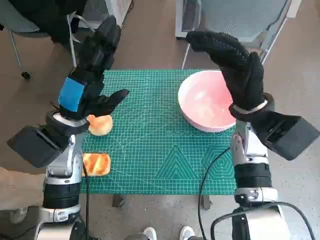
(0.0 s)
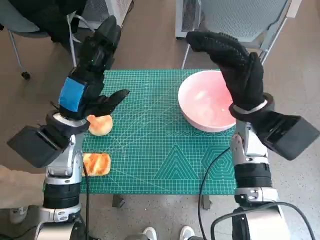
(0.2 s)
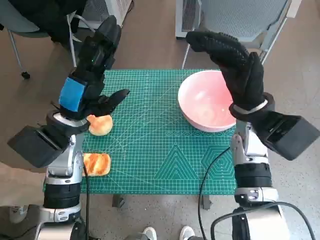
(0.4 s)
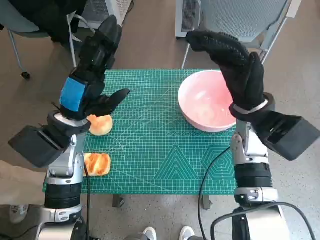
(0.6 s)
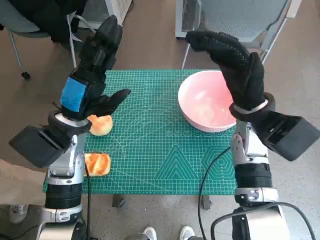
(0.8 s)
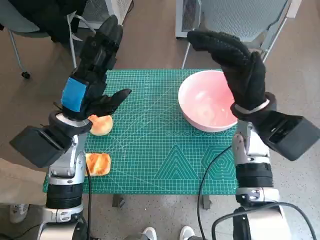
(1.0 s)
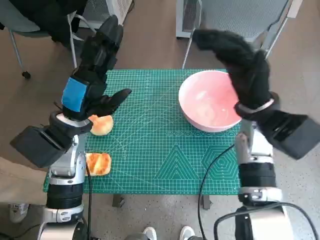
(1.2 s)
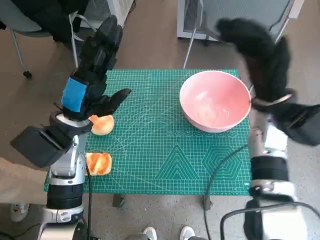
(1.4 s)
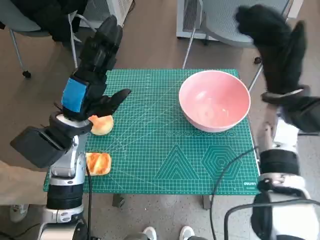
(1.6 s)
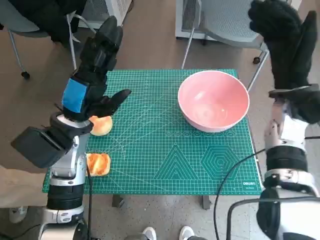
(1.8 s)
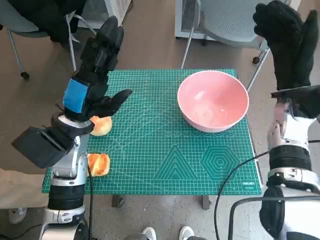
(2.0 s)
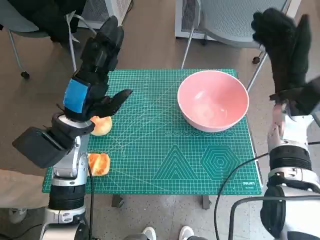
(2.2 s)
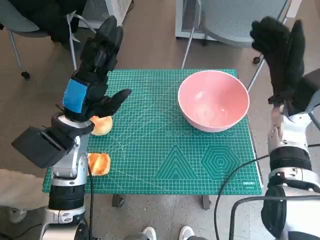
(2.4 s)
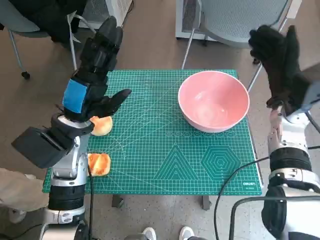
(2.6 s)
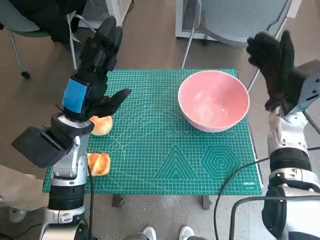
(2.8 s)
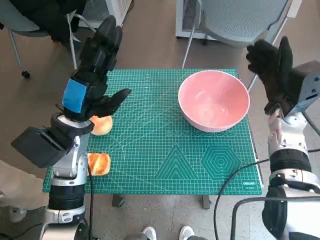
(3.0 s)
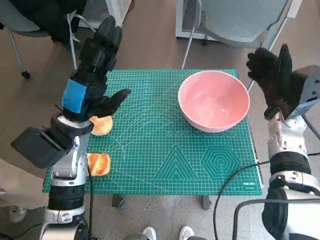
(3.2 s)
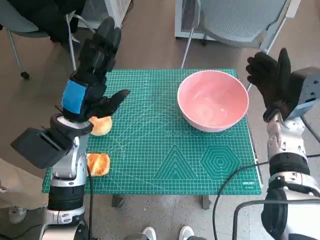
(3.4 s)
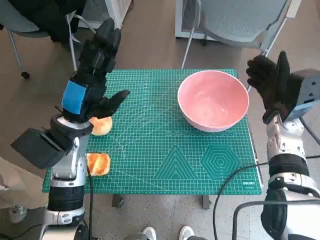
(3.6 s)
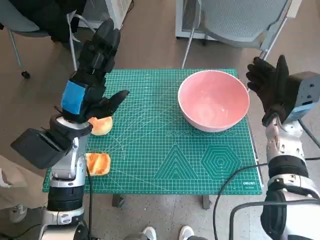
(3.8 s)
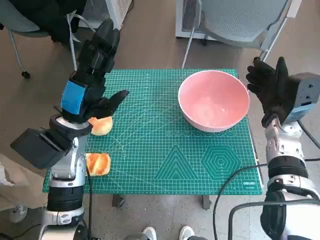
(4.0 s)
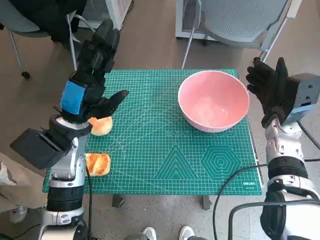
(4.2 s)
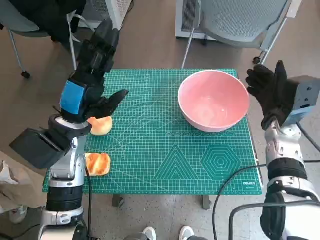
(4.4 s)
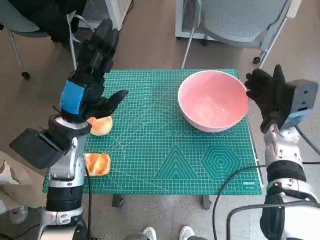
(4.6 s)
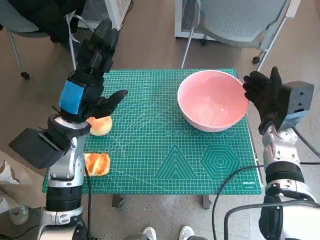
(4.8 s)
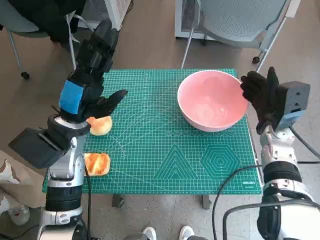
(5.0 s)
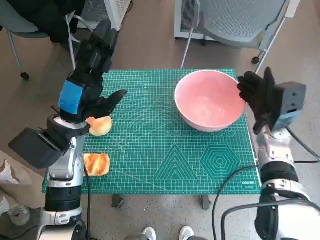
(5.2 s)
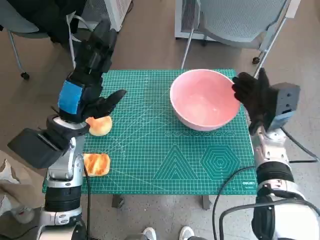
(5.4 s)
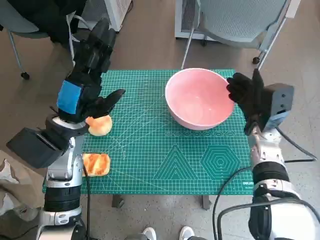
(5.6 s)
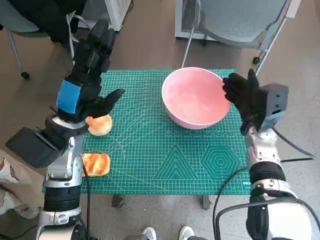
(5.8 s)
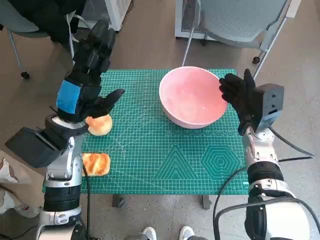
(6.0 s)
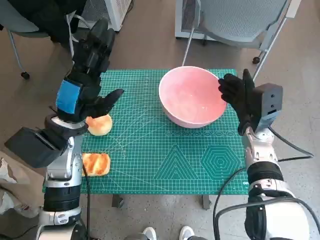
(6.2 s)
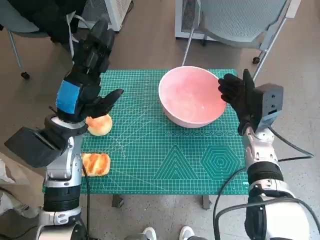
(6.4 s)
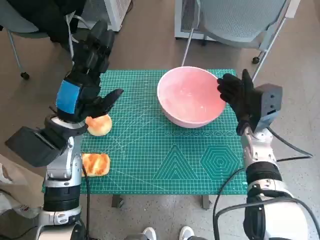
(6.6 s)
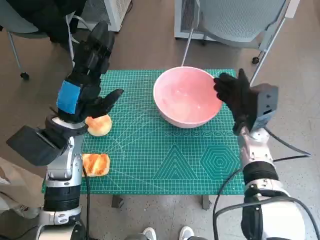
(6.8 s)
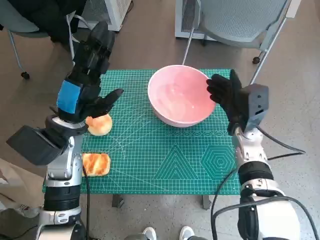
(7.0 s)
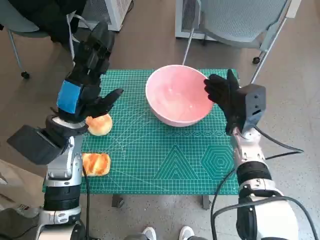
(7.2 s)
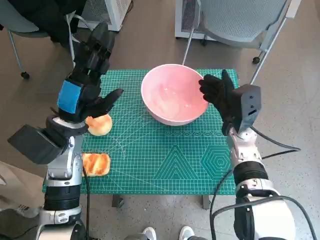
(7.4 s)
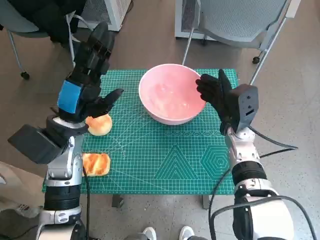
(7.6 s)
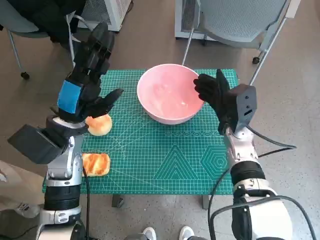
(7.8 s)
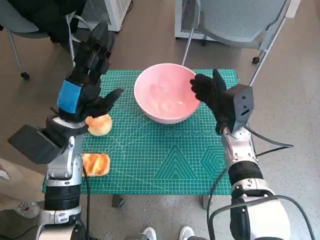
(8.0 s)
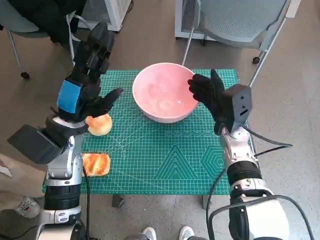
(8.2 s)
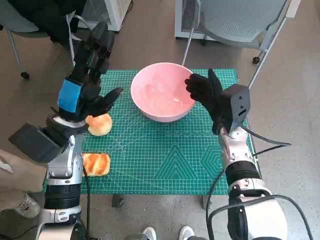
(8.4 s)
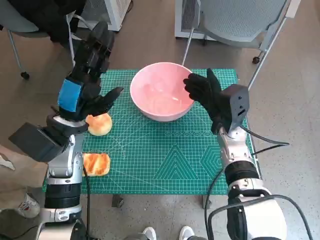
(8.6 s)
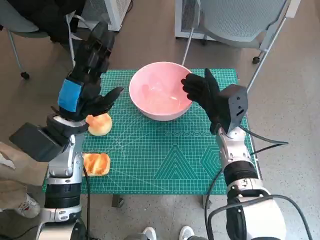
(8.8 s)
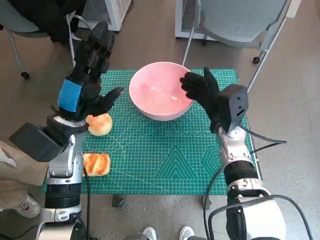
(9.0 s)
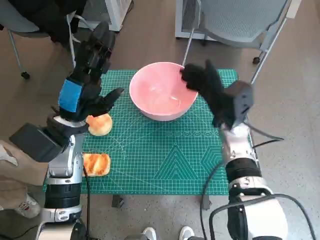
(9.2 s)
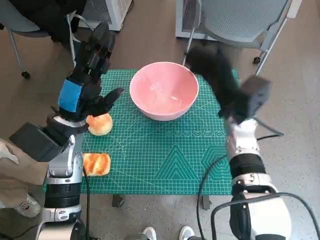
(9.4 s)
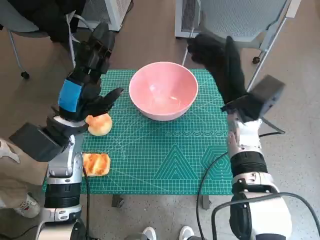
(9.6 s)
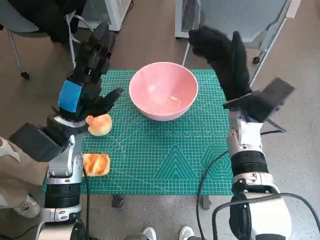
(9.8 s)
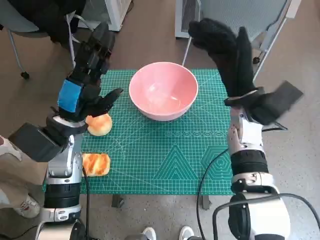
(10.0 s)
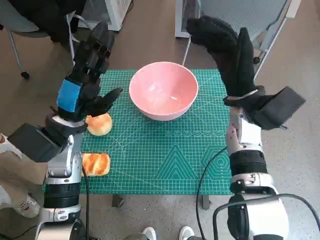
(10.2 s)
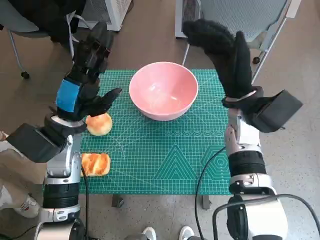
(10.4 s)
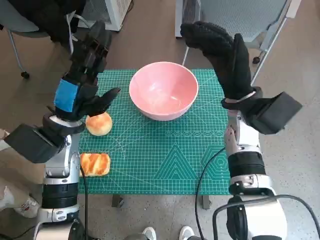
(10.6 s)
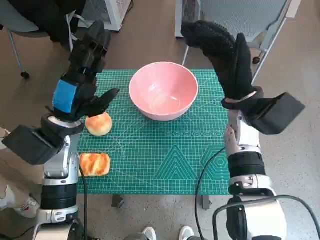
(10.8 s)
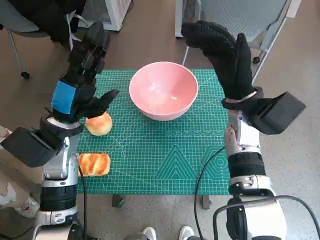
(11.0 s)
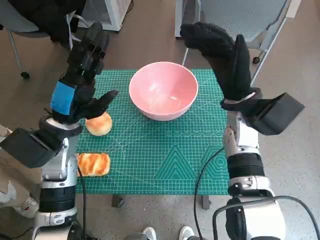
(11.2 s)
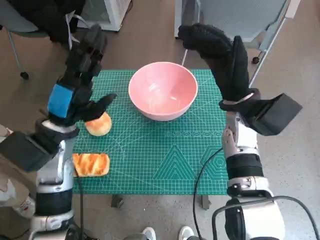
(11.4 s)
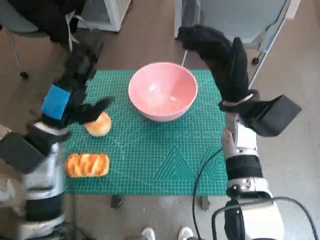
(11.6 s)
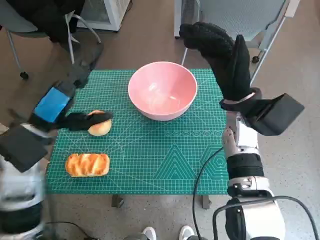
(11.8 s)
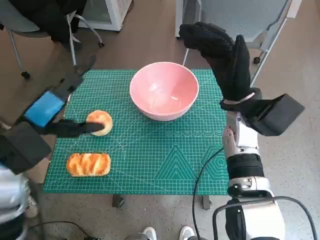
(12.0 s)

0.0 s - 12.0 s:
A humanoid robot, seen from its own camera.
Step, 0.0 s - 9.0 s: Move the pink bowl to the center of table with right hand.
3.0 s - 4.4 s: The hands make only small movements.
6.0 s - 9.0 s: The hands stay close to where they were, moving slightly.
9.0 s - 10.4 s: The right hand travels upward by approximately 10 cm.
10.4 s - 12.0 s: The left hand is displaced backward by roughly 5 cm.

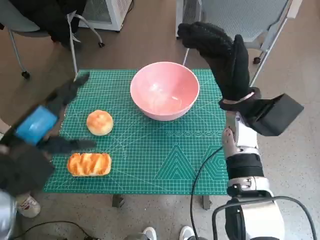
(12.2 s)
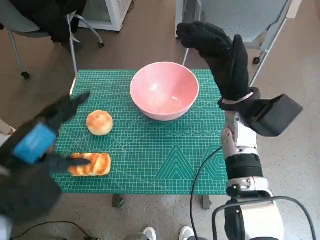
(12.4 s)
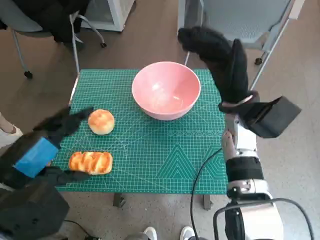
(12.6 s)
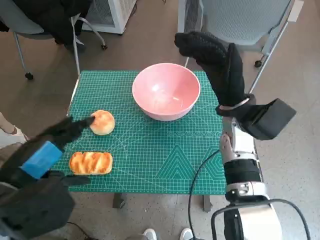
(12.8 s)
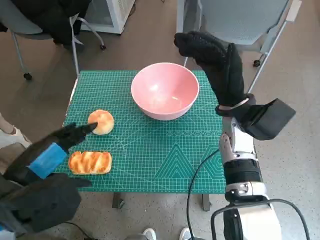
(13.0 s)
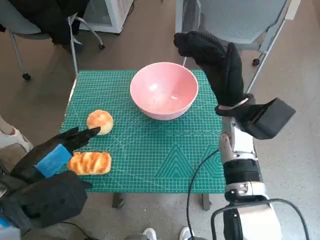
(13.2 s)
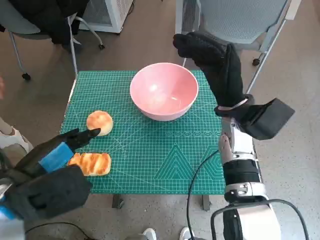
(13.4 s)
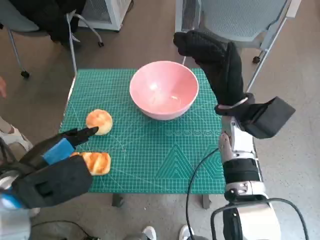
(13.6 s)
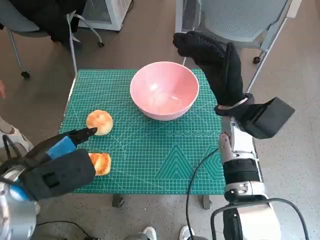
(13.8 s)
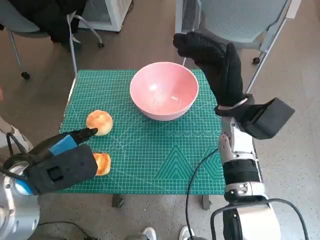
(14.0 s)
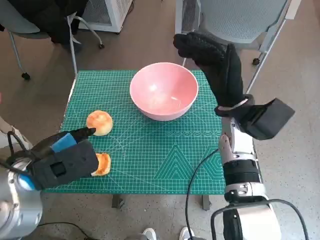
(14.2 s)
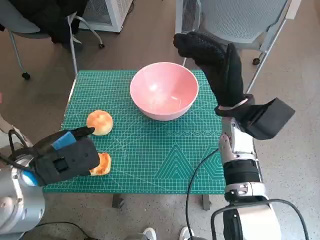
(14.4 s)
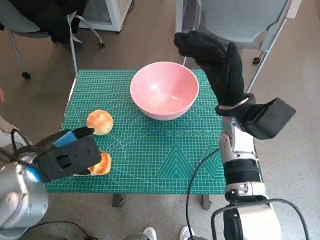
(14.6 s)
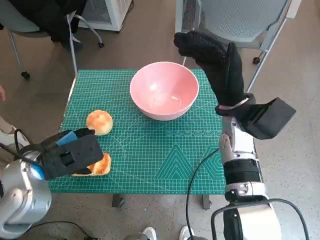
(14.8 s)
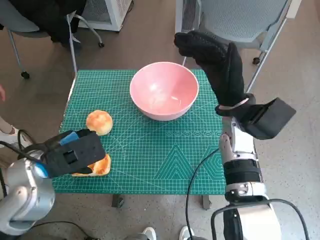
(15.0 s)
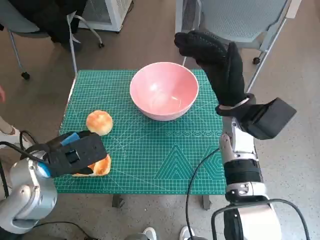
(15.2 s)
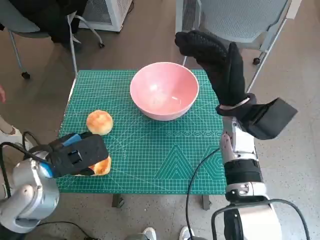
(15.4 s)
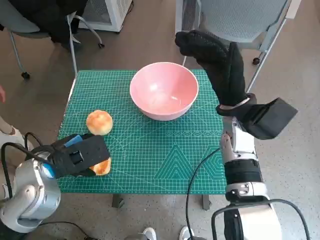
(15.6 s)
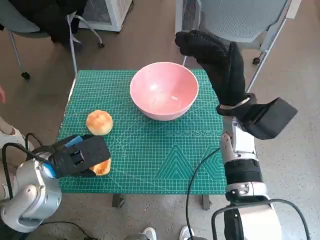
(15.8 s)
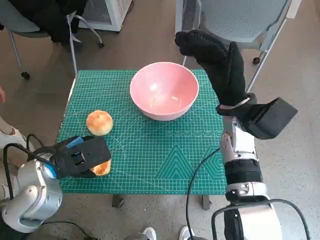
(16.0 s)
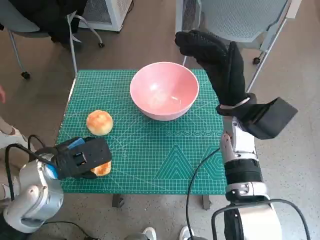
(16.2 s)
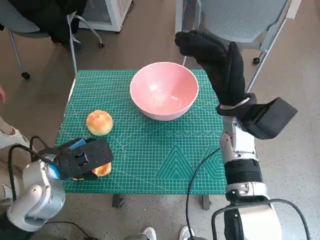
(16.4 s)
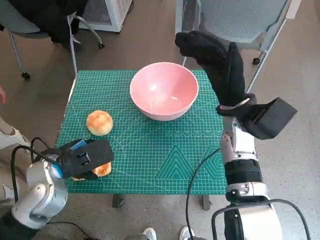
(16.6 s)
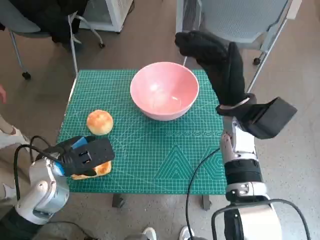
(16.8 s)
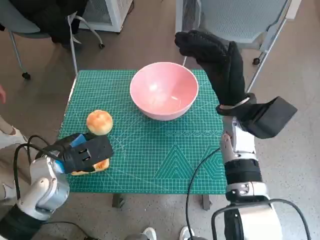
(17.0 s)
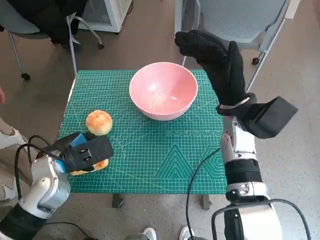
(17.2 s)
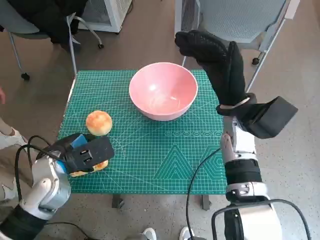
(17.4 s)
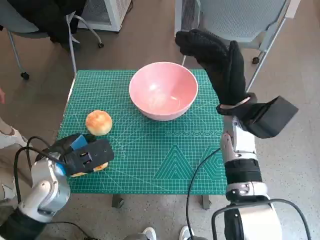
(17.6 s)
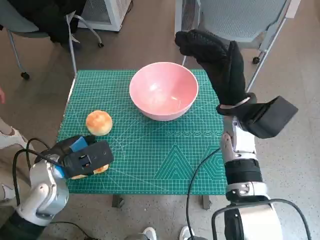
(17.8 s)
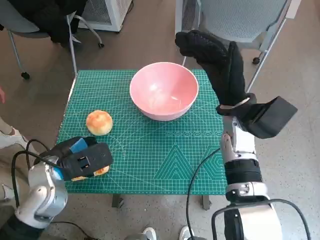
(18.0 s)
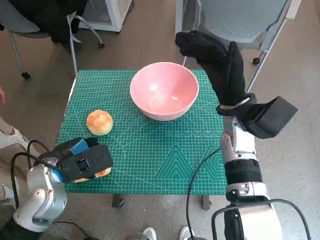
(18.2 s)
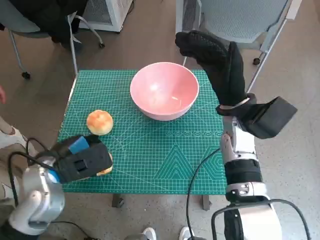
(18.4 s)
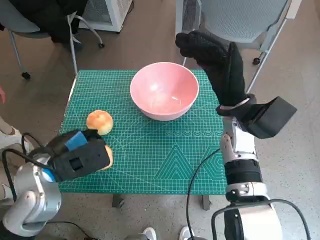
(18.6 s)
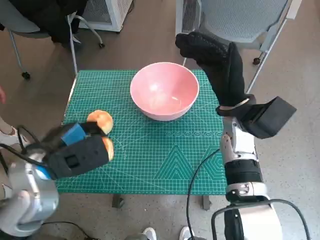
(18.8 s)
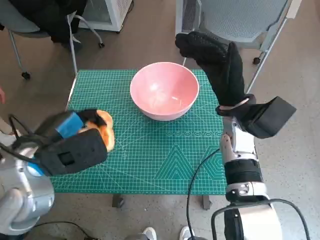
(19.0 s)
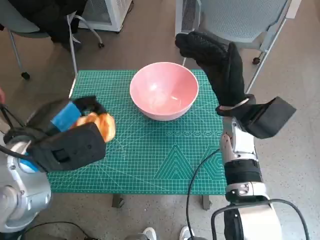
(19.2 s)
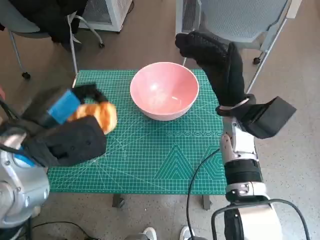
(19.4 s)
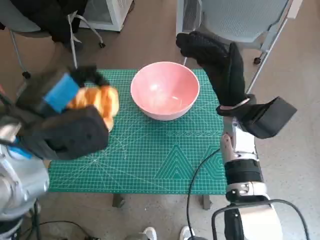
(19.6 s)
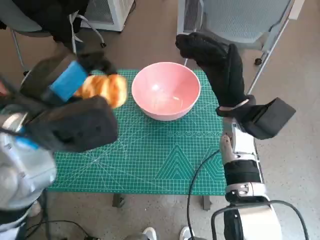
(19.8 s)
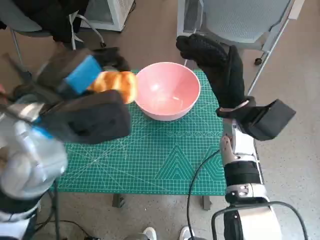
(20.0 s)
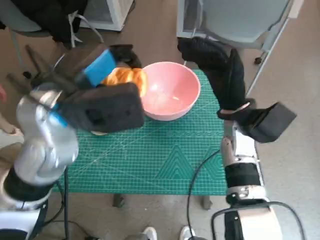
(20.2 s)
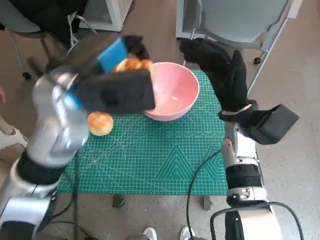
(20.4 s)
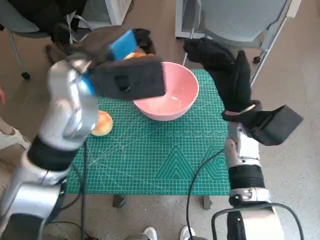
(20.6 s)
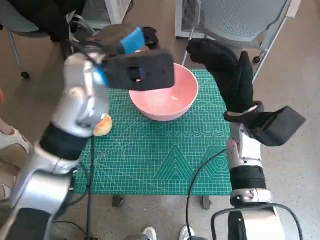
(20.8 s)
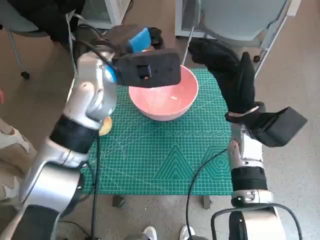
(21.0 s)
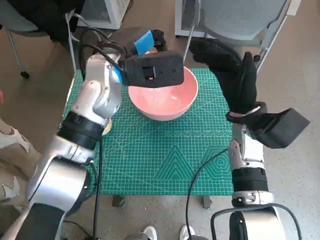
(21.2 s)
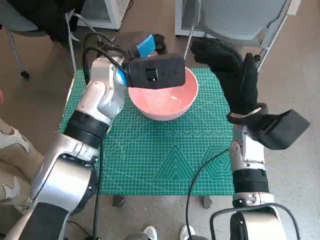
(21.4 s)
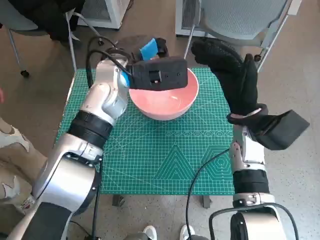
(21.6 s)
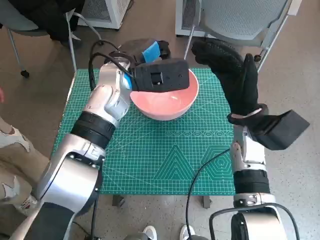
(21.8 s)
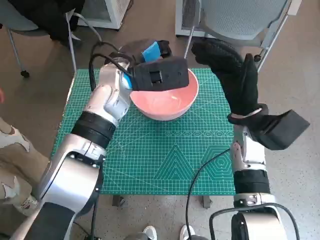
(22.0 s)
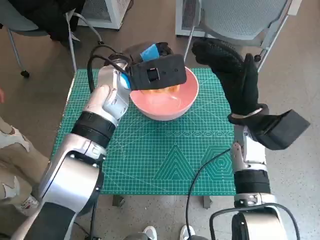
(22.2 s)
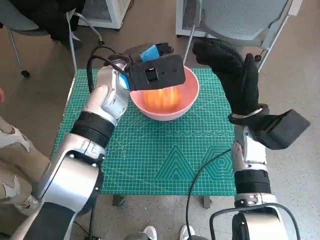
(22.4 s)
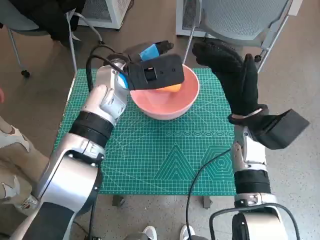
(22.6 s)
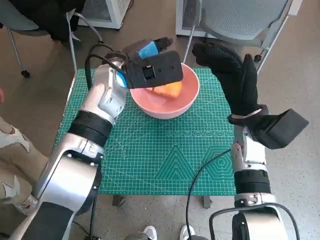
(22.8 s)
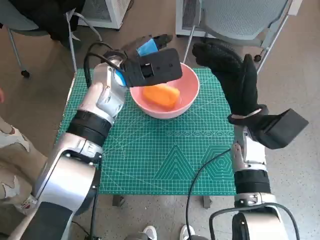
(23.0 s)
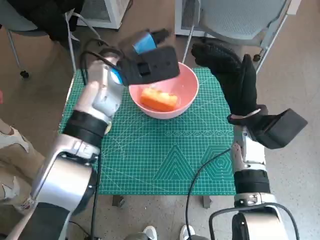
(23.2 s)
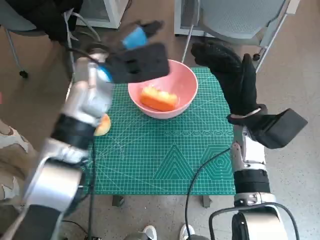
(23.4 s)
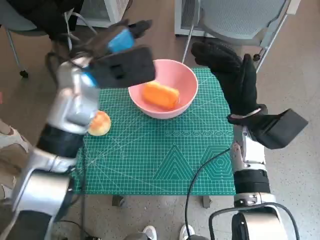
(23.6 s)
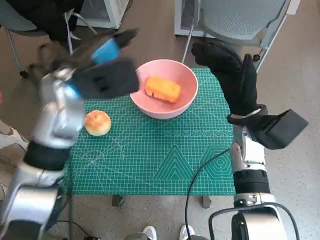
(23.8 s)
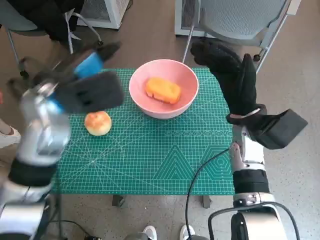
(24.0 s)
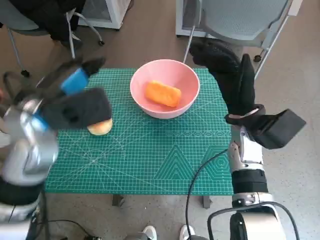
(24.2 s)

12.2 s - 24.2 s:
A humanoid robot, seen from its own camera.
Step, 12.2 s - 17.0 s: Grasp the long bread with left hand.
Step, 17.2 s - 22.4 s: Place the long bread in pink bowl with left hand.
13.8 s - 15.2 s: The left hand changes place by approximately 5 cm.
15.2 s - 18.2 s: There are only small adjustments of the hands.
18.2 s - 19.8 s: The left hand heads upward, covering roughly 15 cm.
19.8 s - 21.2 s: The left hand shifts approximately 15 cm forward and to the right.
21.2 s - 22.6 s: The hands make only small movements.
22.6 s - 24.2 s: The left hand moves to the left and backward, some 15 cm.
